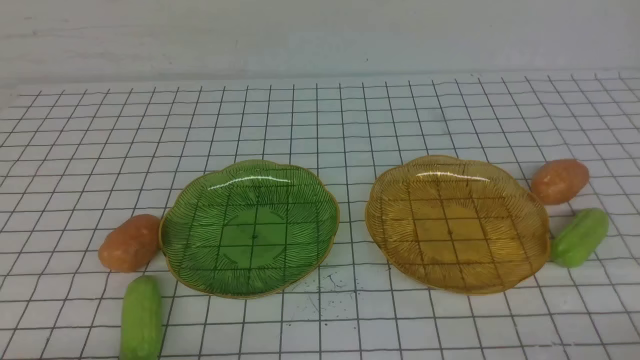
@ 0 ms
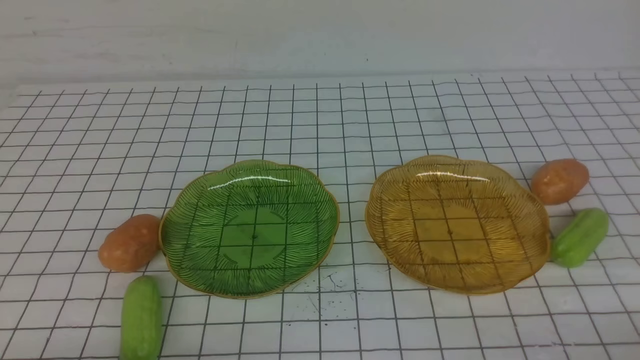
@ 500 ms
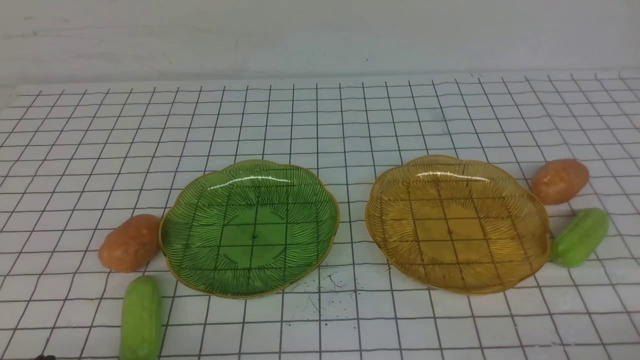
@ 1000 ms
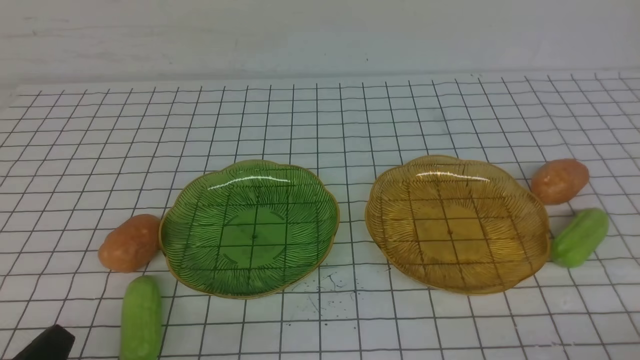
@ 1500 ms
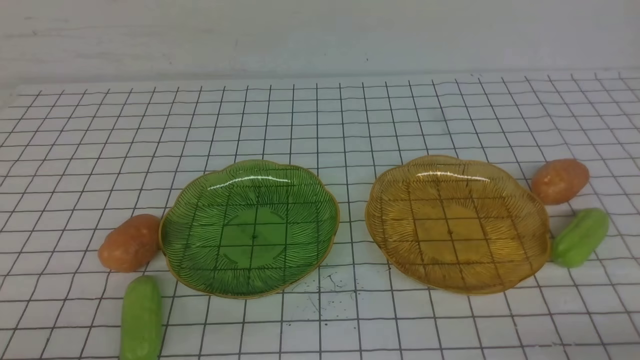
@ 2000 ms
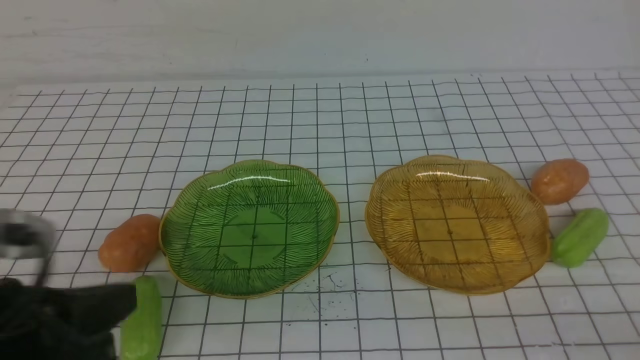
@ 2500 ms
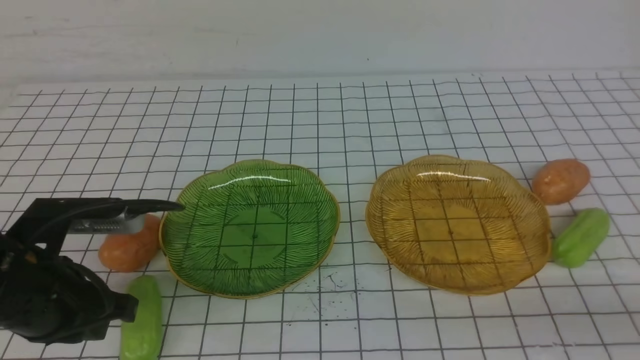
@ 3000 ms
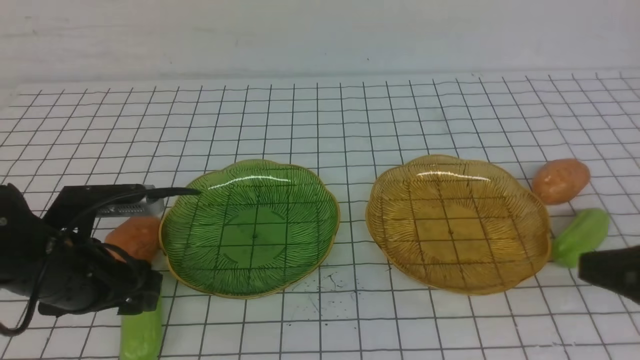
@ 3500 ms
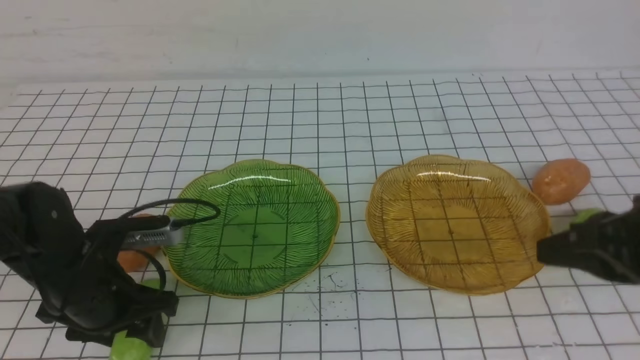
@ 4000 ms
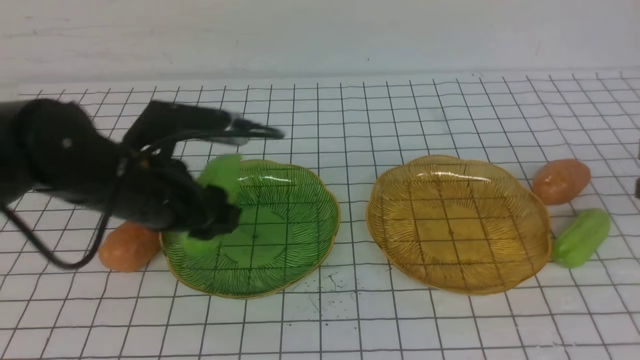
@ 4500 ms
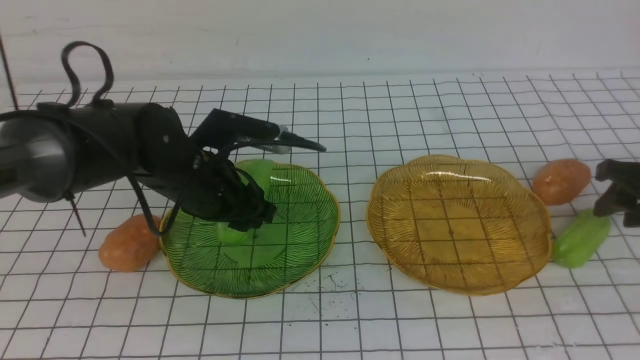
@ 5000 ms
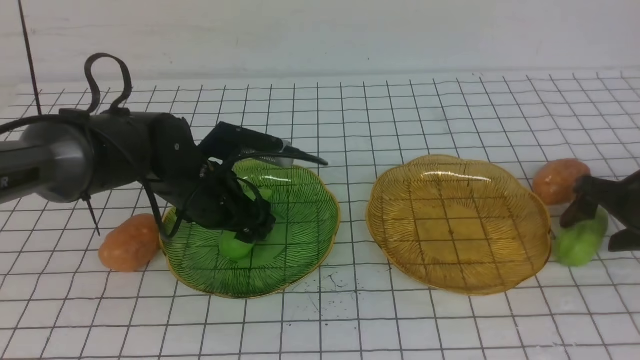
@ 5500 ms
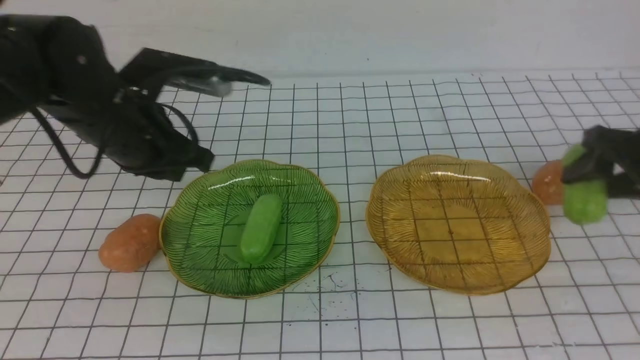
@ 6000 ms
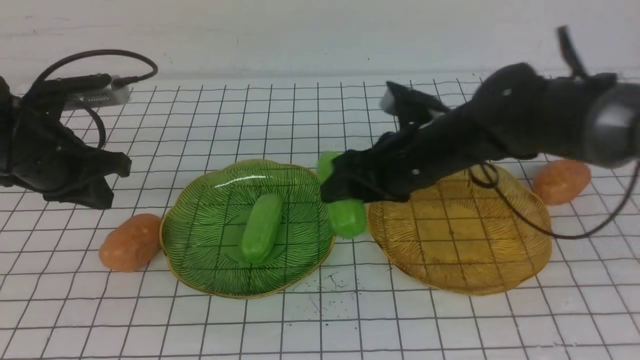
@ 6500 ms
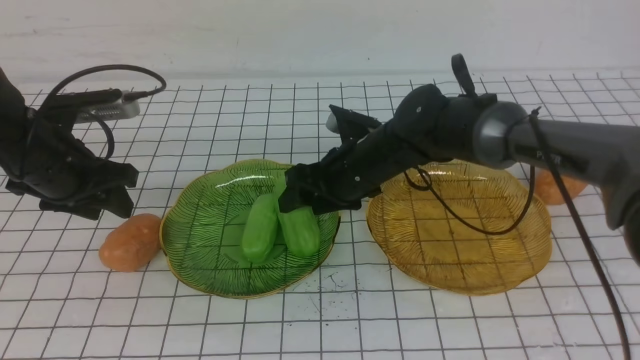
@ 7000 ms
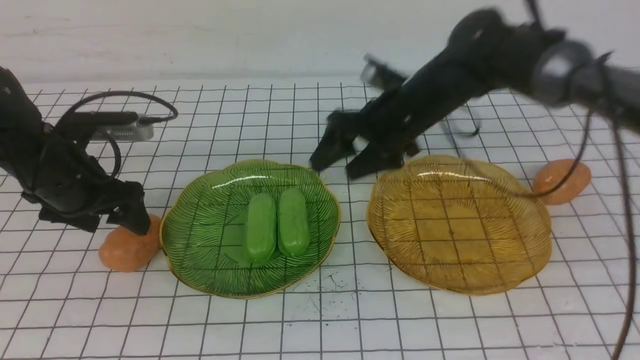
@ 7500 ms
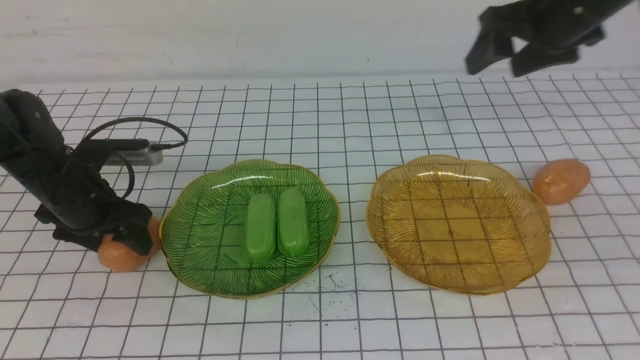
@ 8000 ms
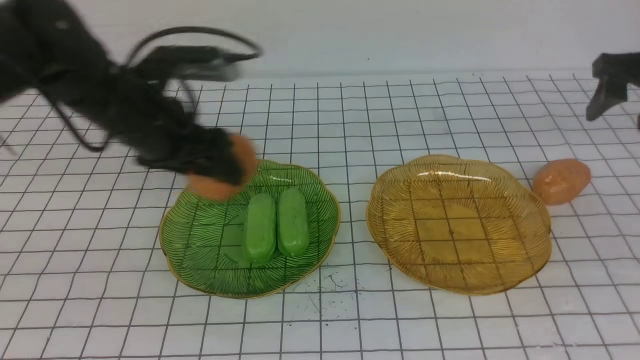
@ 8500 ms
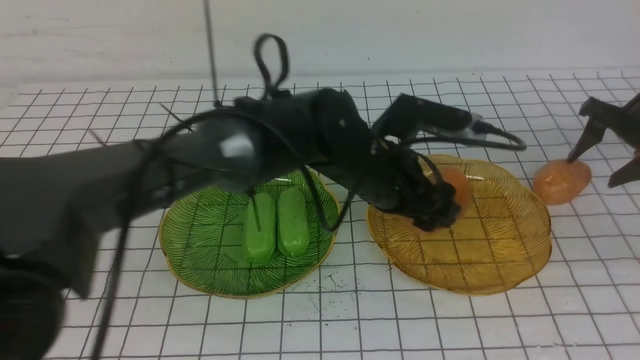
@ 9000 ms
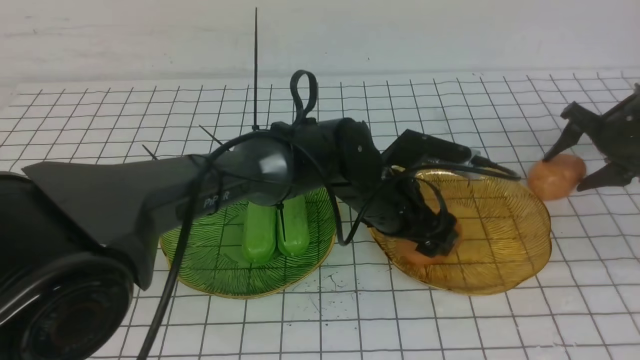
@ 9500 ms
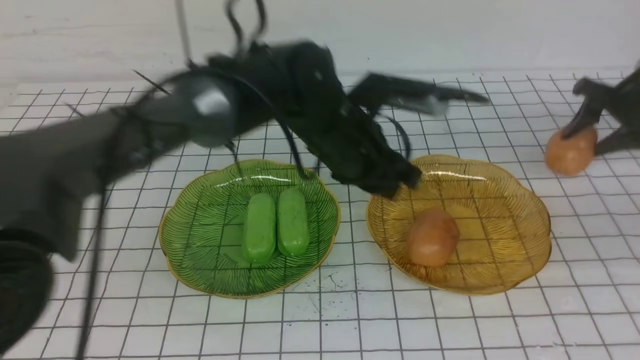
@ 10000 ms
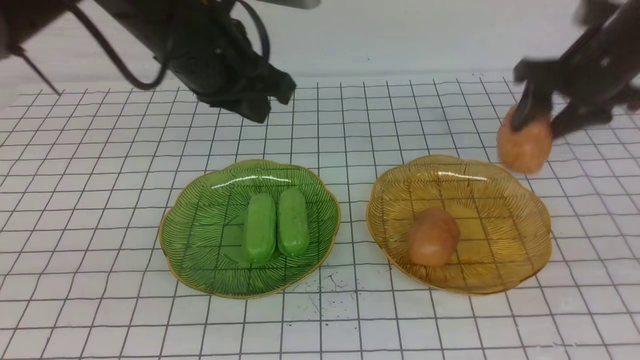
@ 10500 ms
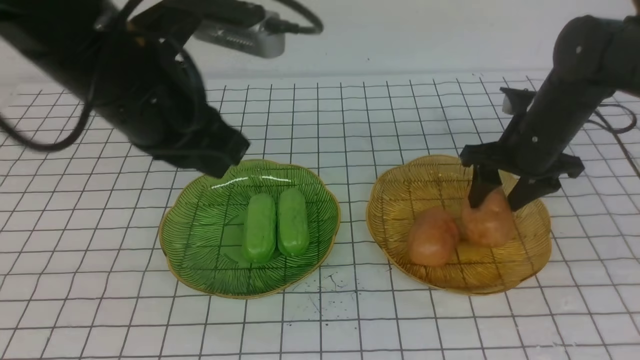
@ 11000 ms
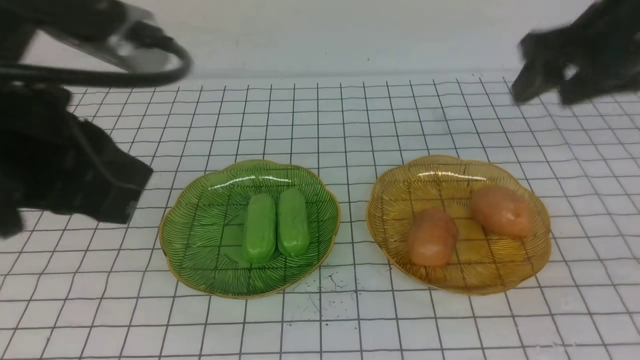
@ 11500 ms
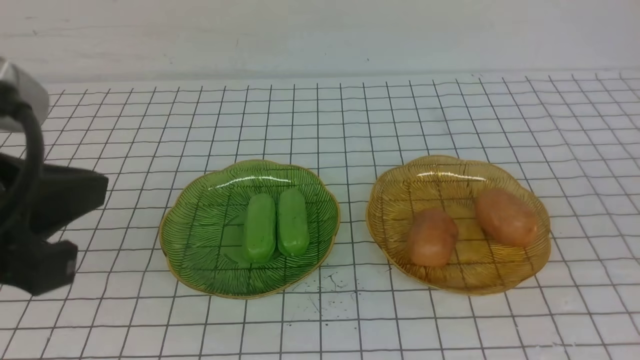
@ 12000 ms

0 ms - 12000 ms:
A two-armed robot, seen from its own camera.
Step, 0 ms - 5500 ms: use the left arm to grab a chayote and put it into the left plate.
Step, 6000 ms - 7000 ms: Grab the chayote with your right arm and put it on the left plate.
Step, 7500 ms - 9500 ms: Grab a potato with your left arm and put it on the right plate.
Step, 10000 ms - 11000 ms: Grab a potato with your right arm and put it on the right plate.
2000 ms - 4000 ms: The right gripper shifts some 20 cm forward and upward; the left gripper travels forward by approximately 20 cm, and opens up.
4000 ms - 6000 ms: The right gripper shifts some 15 cm forward, and opens. Meanwhile the left gripper moves up and down over about 10 cm, changing direction 2 times, and closes up.
6000 ms - 8000 ms: The left gripper moves downward and to the left, approximately 10 cm, and opens its fingers; the right gripper heads upward and forward, covering some 15 cm, and travels to the left and back again, approximately 25 cm each way.
8000 ms - 10000 ms: The right gripper moves to the right and downward, roughly 15 cm; the left gripper heads to the right, covering some 30 cm, and closes its fingers.
10000 ms - 12000 ms: The left gripper moves backward, to the left and upward, roughly 35 cm, and closes up, while the right gripper shifts roughly 50 cm backward and upward, and closes.

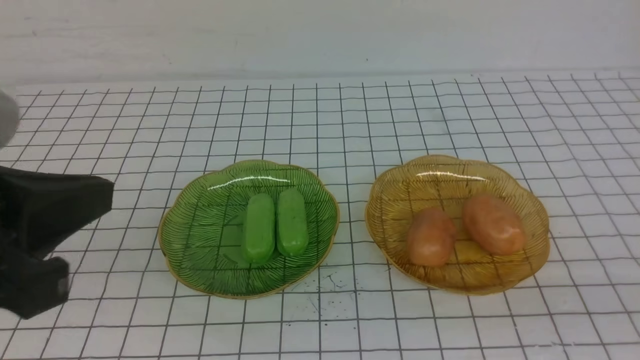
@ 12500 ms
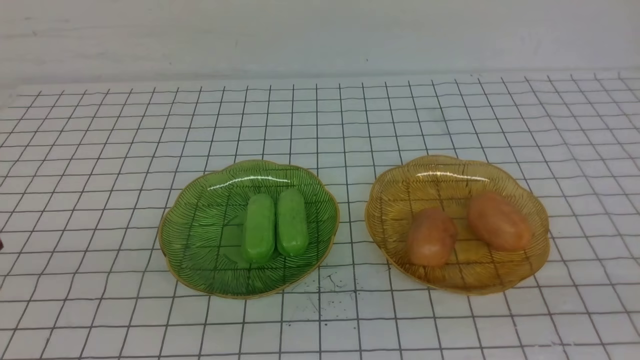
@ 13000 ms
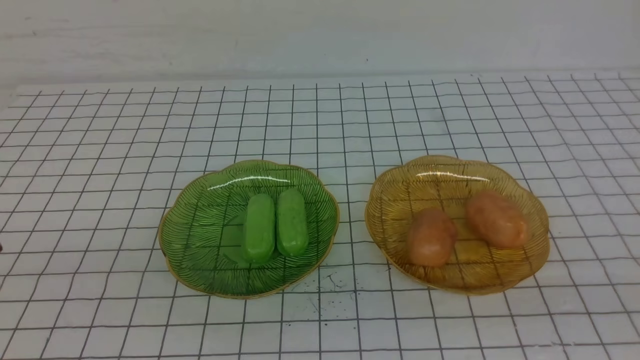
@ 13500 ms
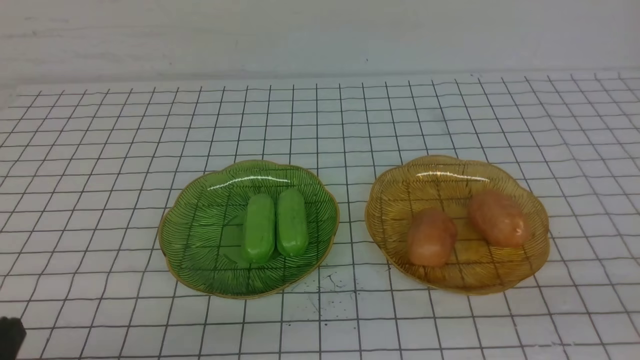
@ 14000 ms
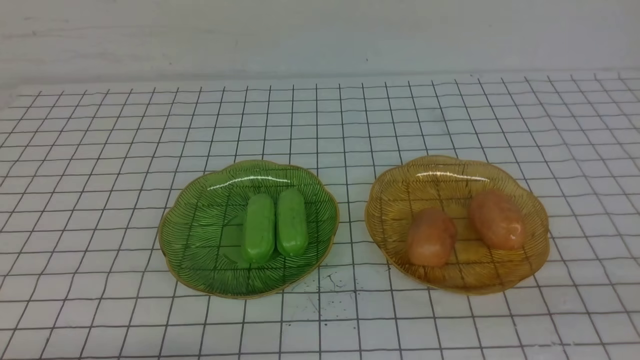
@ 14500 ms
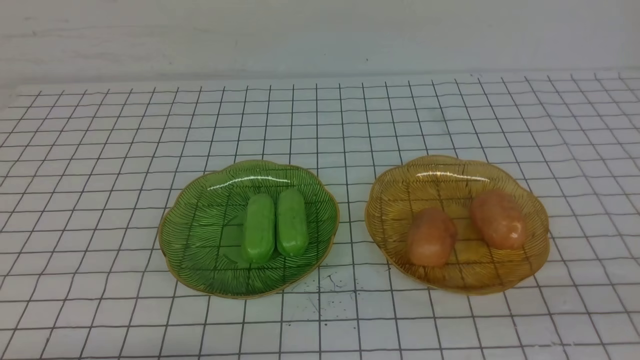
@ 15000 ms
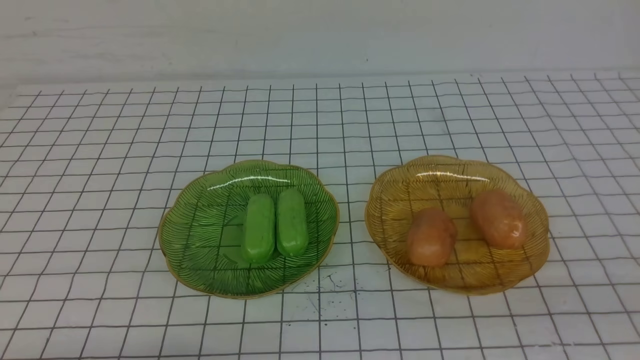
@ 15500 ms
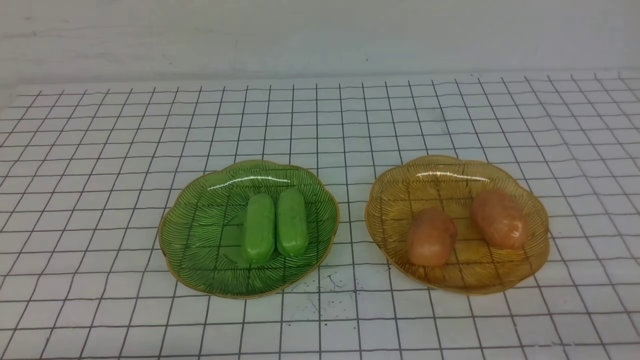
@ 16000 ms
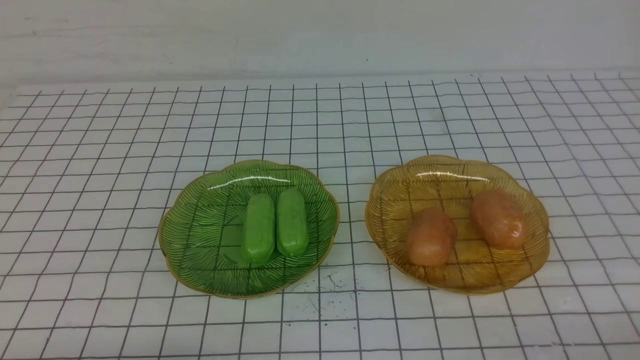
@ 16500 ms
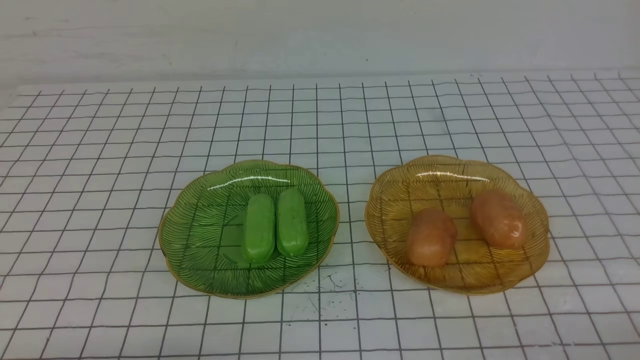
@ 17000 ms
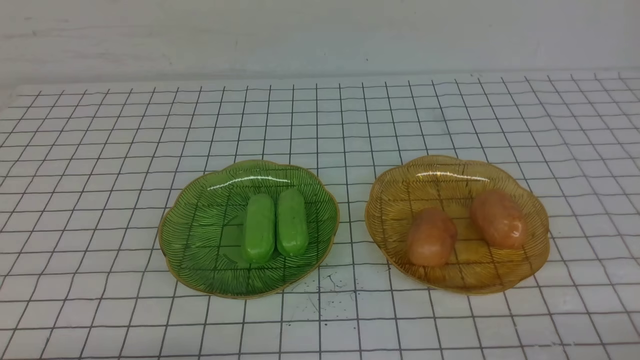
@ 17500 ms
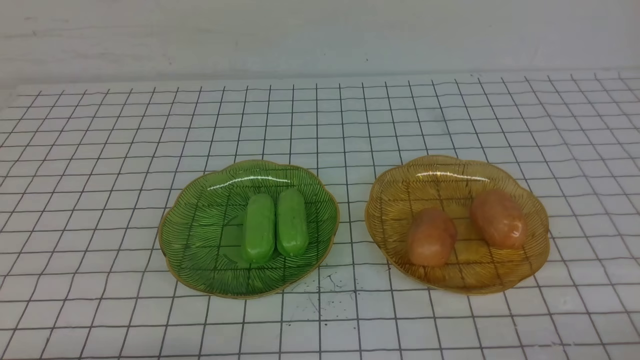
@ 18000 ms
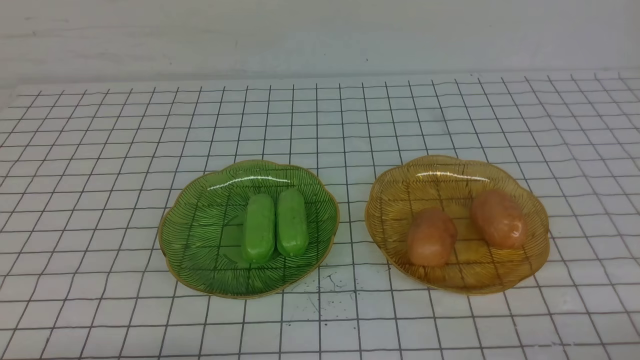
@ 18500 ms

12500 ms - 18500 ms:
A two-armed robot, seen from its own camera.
12500 ms - 14500 ms: The left gripper heads downward, covering about 20 cm.
16500 ms - 18500 ms: Neither gripper changes place.

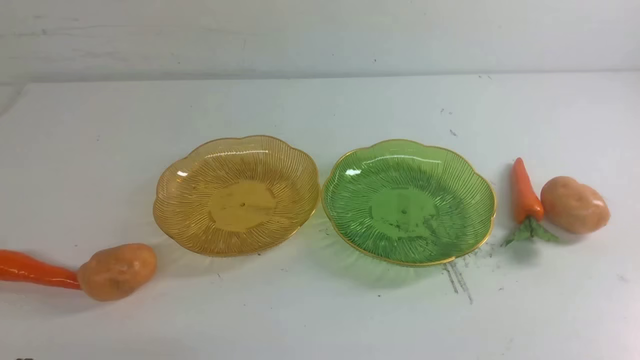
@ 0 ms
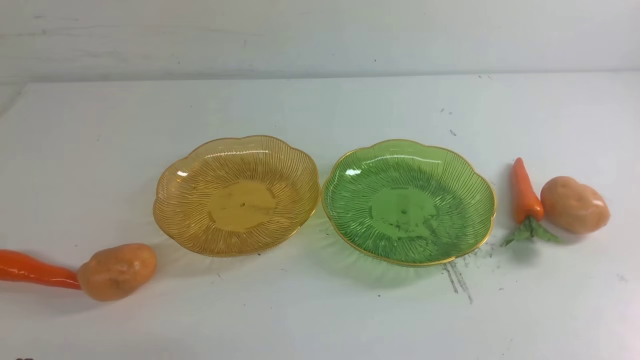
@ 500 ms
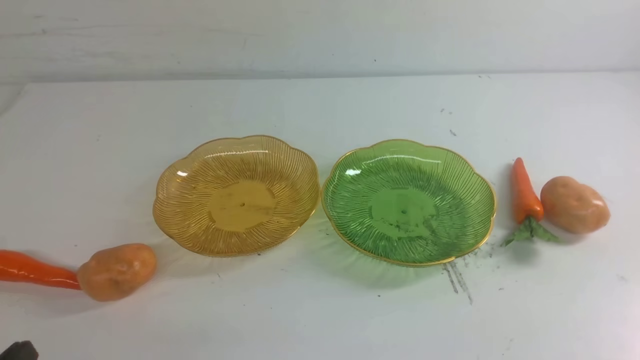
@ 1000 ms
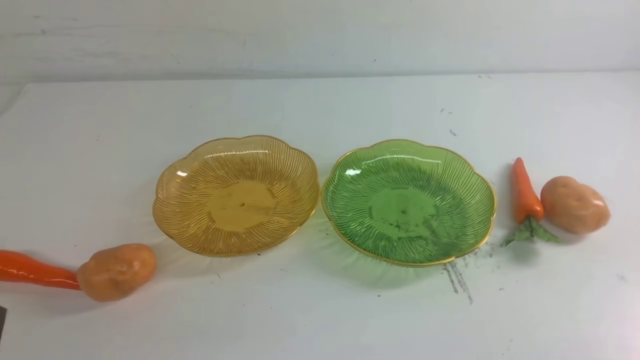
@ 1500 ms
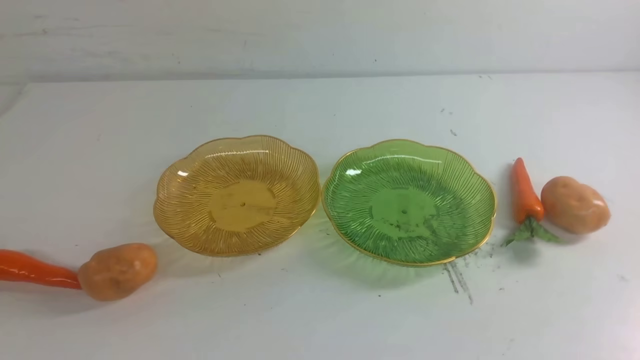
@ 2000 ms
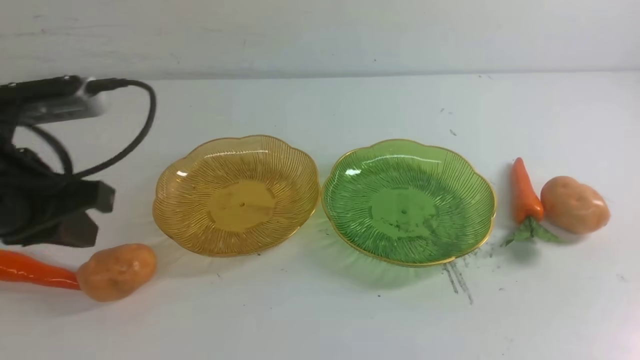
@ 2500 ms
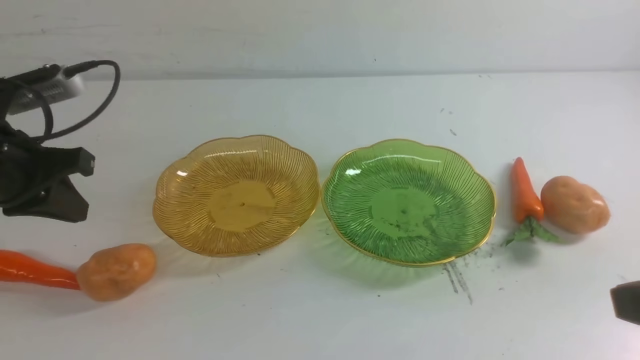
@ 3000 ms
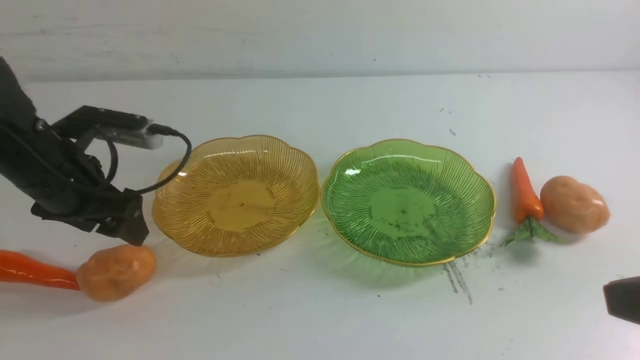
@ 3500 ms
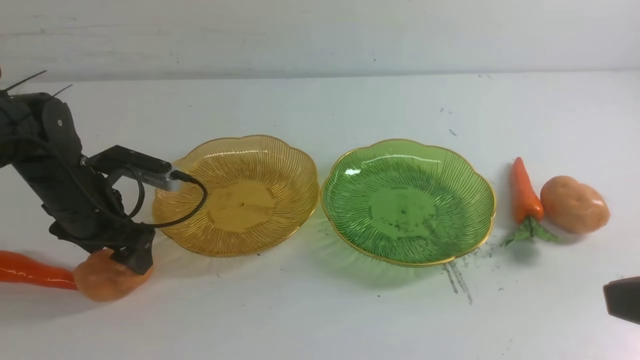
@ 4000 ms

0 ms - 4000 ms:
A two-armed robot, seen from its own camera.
2000 ms - 4000 ms: The right gripper travels upward by approximately 15 cm, while the left gripper travels forward by roughly 30 cm, and opens.
